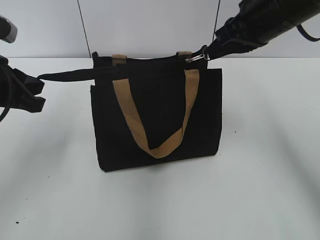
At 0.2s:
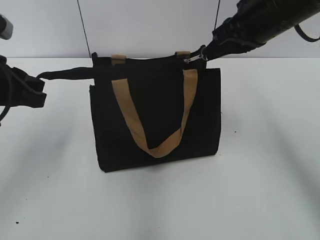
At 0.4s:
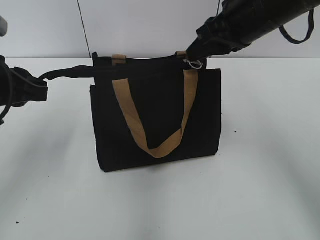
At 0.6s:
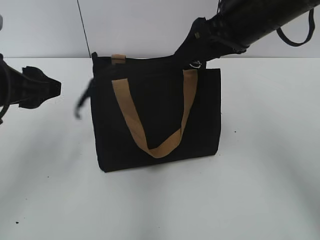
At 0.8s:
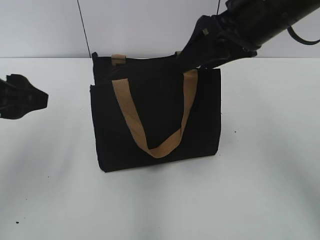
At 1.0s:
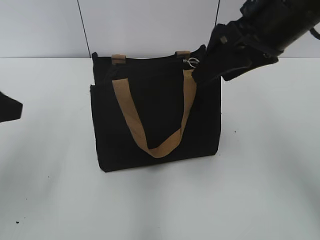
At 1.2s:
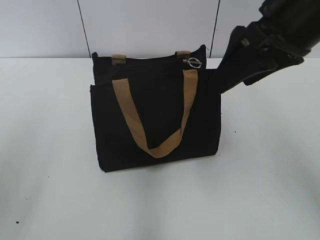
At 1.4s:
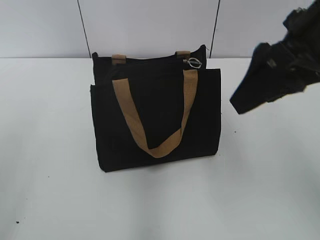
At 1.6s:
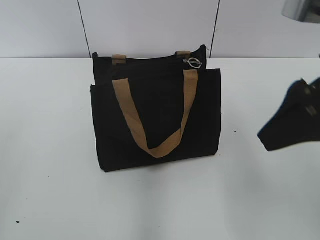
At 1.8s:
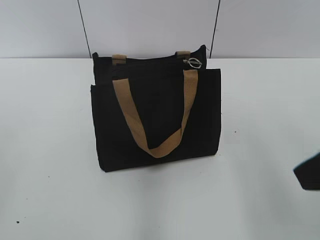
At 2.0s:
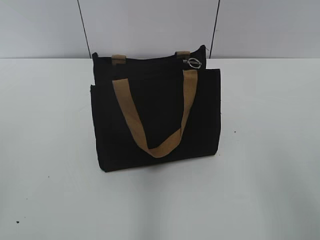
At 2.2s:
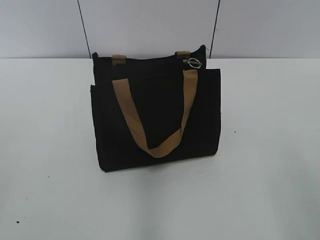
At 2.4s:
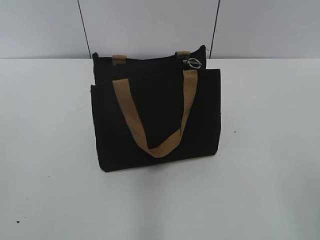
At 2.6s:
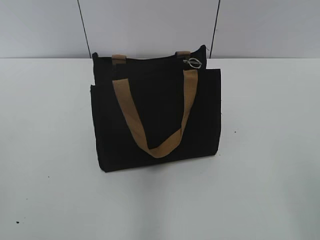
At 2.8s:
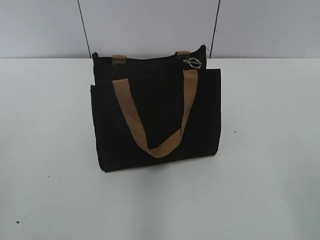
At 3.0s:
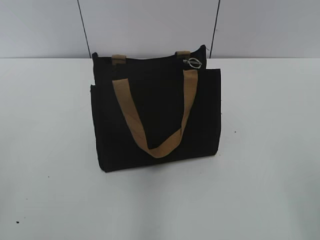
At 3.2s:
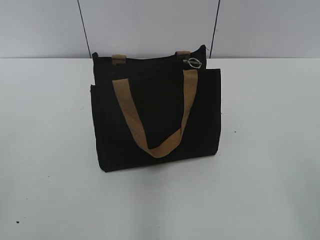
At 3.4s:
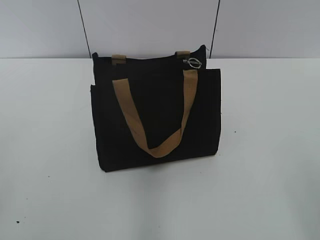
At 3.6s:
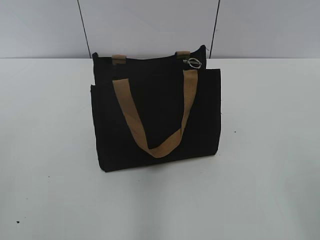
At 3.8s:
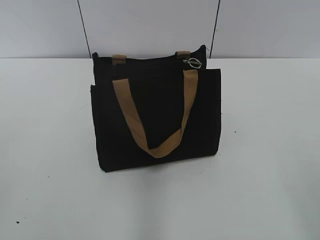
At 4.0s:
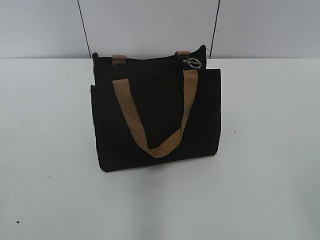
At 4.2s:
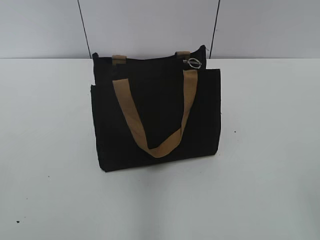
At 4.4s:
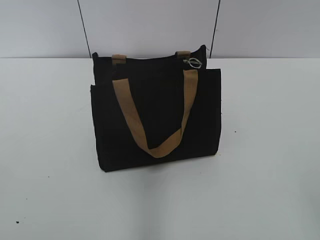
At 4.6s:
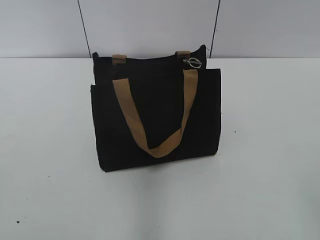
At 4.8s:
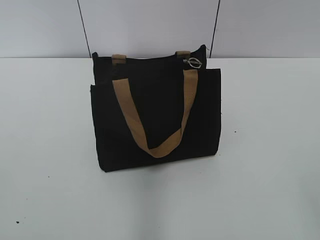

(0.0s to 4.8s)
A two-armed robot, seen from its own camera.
Step, 0.4s - 0.6s: Grab the zipper with your left hand.
0.0s - 1.6s: The grippers both shift backward by approximately 15 cm. The right gripper opens its fingers. The left gripper opens its fingers.
1.6s - 3.2s: The right gripper shifts roughly 20 cm backward and to the right.

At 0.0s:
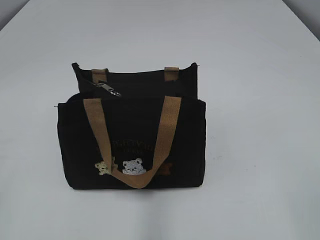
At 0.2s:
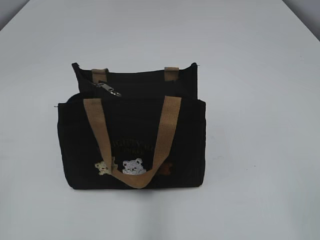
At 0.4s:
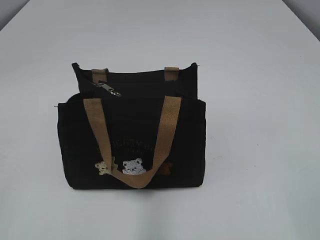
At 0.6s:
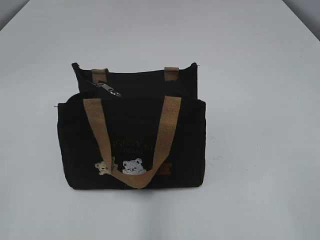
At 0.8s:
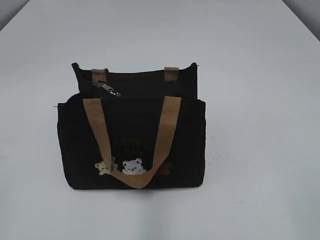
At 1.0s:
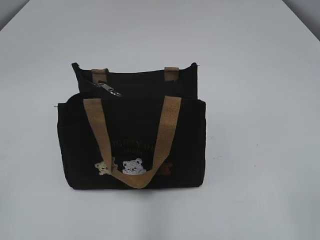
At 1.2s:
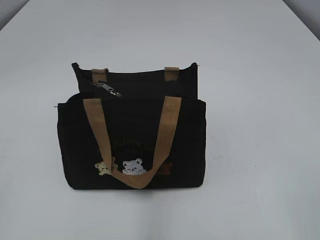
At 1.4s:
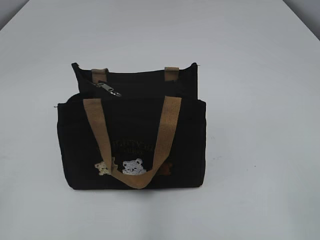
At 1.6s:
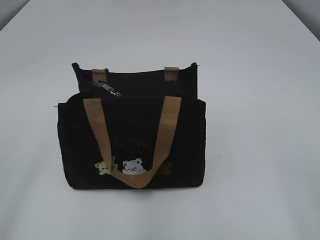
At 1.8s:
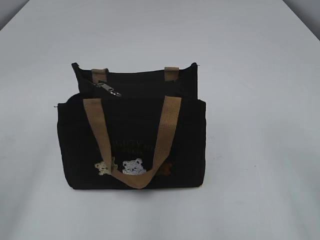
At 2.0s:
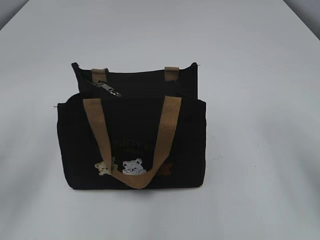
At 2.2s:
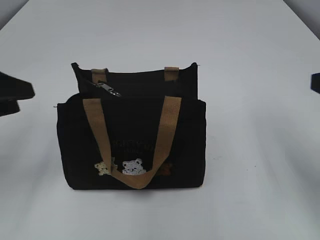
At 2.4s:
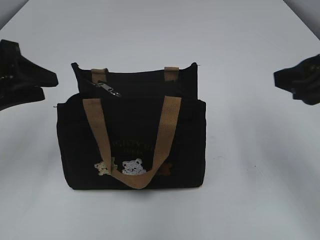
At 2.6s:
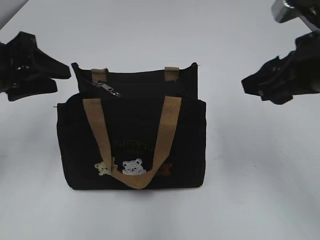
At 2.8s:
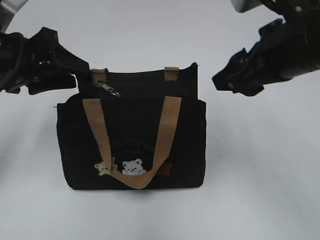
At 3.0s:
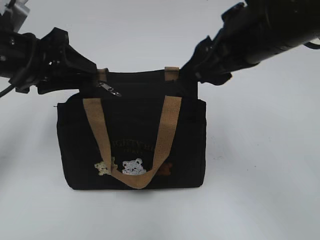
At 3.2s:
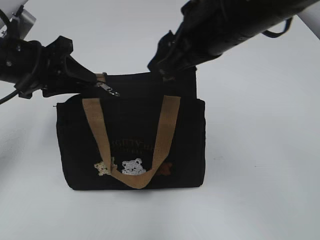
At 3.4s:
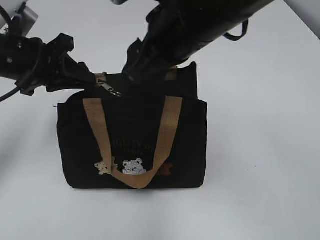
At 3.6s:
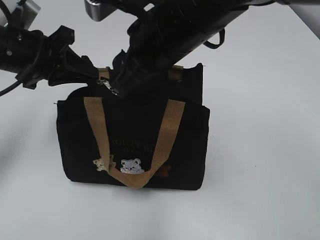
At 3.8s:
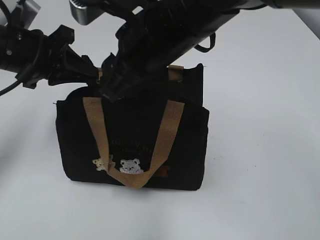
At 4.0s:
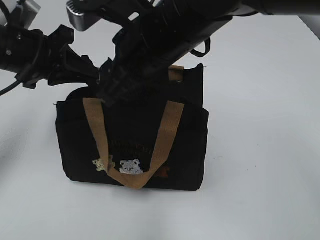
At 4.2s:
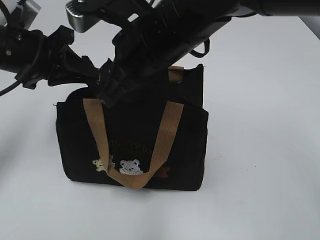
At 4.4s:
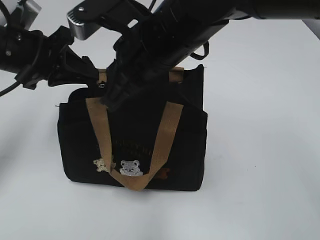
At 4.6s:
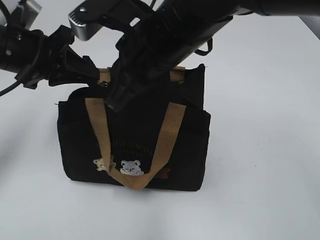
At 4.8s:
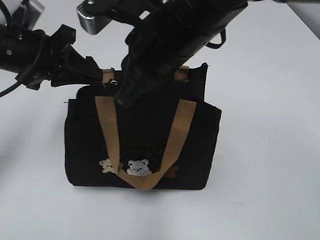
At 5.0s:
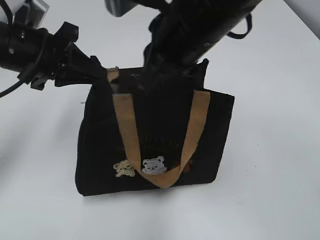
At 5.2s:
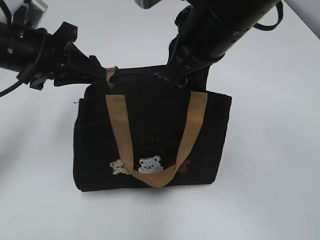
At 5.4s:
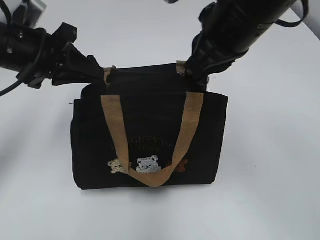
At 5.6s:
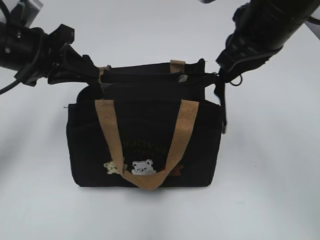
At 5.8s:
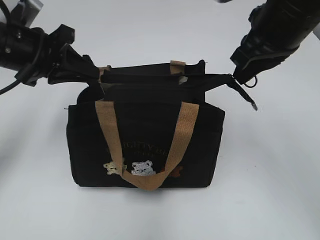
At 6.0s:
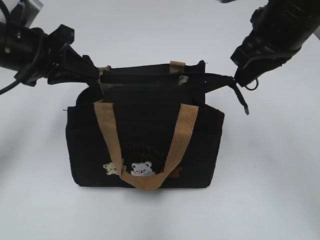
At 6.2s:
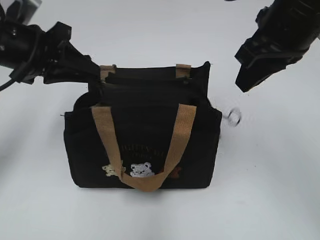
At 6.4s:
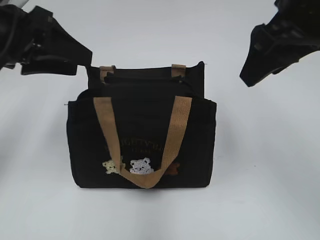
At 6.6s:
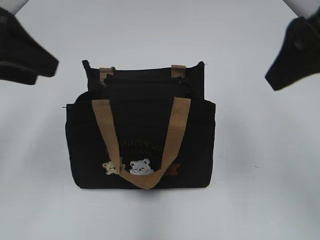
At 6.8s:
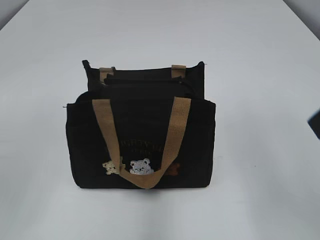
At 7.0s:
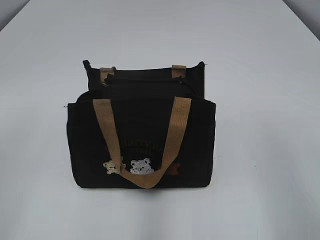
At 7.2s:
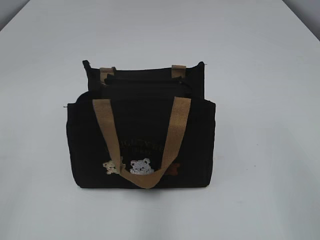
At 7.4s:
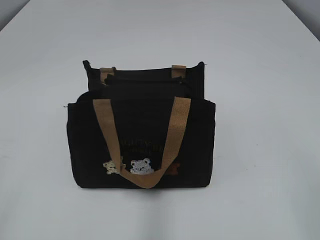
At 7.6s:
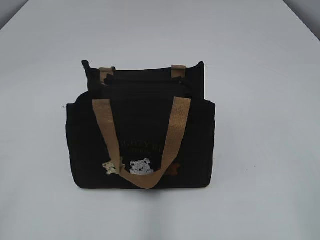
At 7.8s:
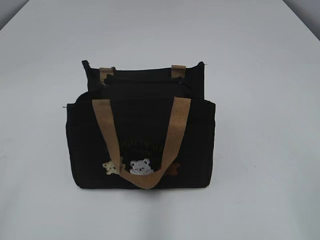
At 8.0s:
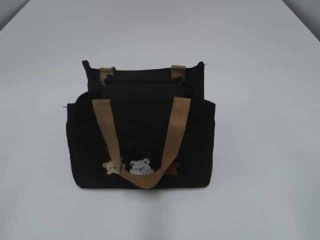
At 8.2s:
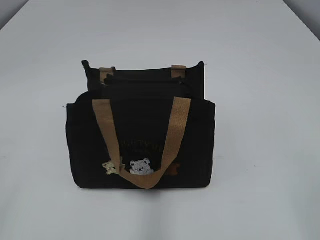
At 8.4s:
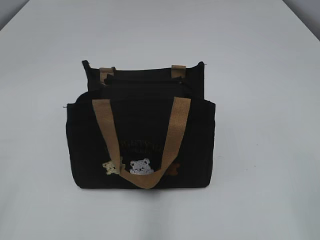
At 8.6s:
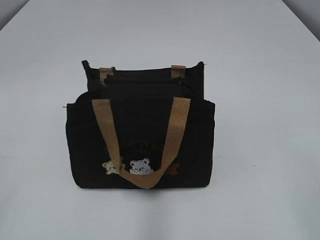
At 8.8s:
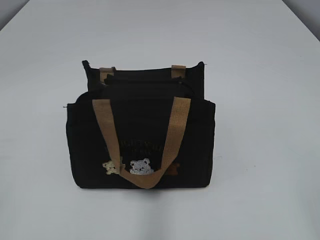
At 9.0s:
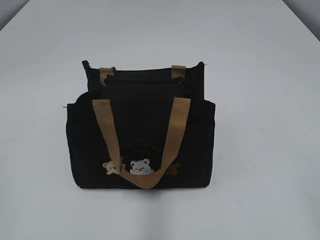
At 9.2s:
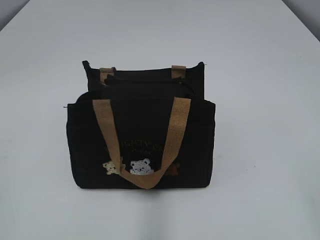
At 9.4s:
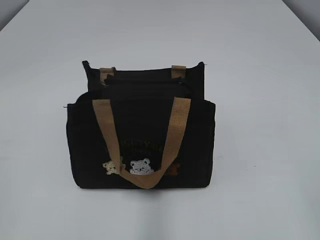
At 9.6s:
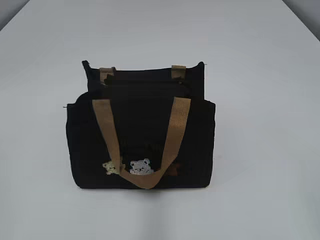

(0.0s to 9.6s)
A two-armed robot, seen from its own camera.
Step, 0.0s - 6.0s: Pull open the zipper with your right hand.
Step, 6.2s - 6.4s: Hold the bag with your left hand.
1.6s - 3.2s: The left gripper travels forward by some 30 cm. Meanwhile the right gripper goes about 30 cm forward and to the left.
3.2s - 4.8s: The right gripper travels to the left by approximately 10 cm, and closes its fingers; the left gripper closes.
4.8s - 6.4s: The left gripper opens up. The right gripper travels to the right by some 15 cm, and opens up.
6.4s - 8.0s: The right gripper shifts some 30 cm backward and to the right; the left gripper is displaced backward by some 30 cm.

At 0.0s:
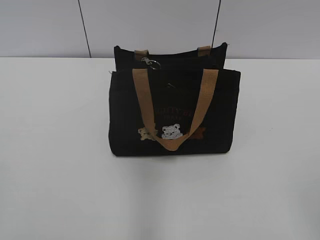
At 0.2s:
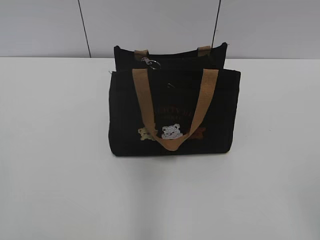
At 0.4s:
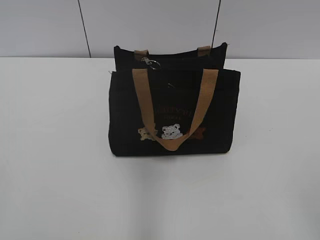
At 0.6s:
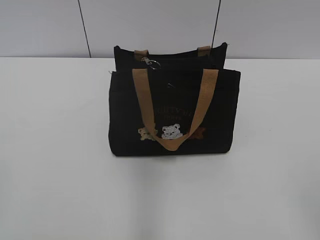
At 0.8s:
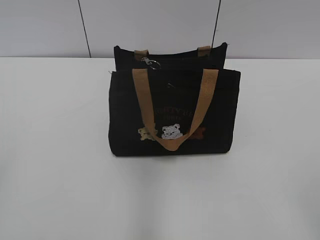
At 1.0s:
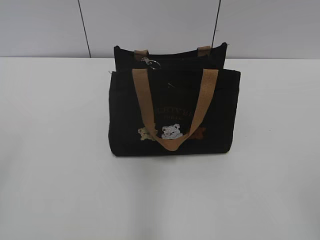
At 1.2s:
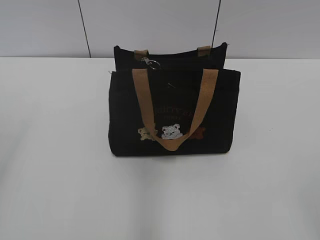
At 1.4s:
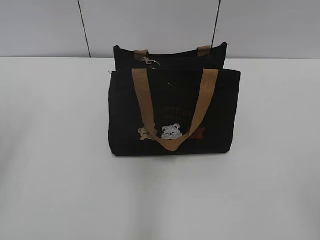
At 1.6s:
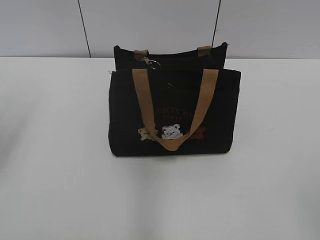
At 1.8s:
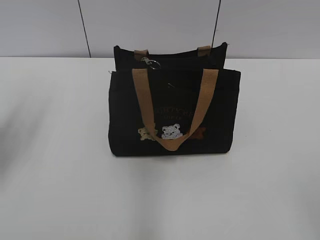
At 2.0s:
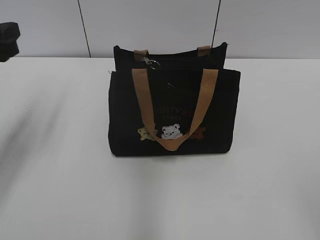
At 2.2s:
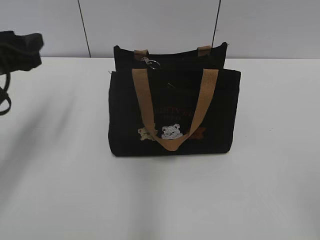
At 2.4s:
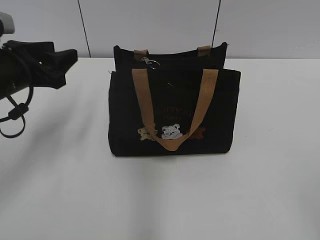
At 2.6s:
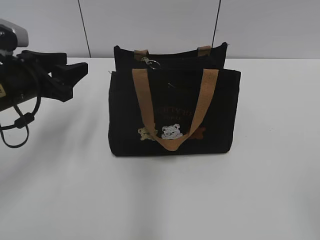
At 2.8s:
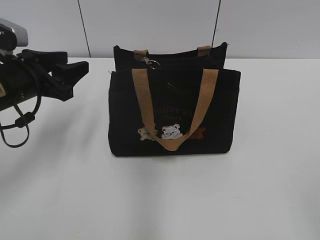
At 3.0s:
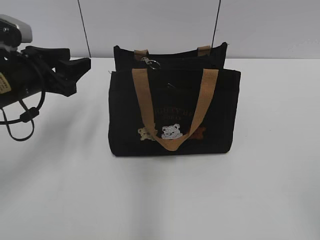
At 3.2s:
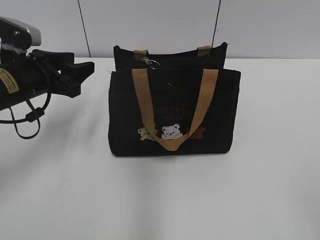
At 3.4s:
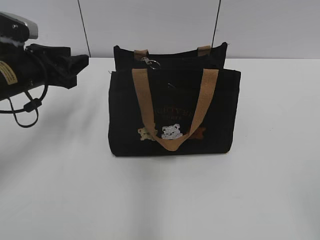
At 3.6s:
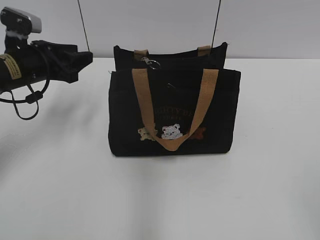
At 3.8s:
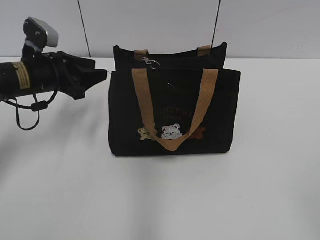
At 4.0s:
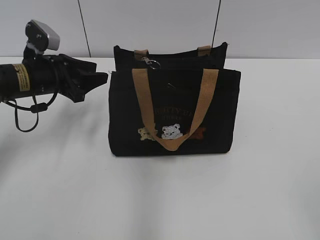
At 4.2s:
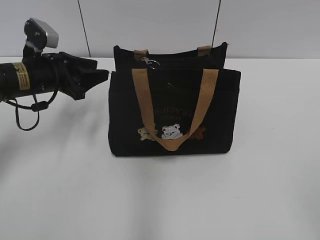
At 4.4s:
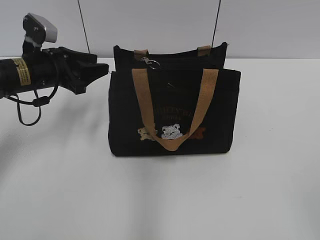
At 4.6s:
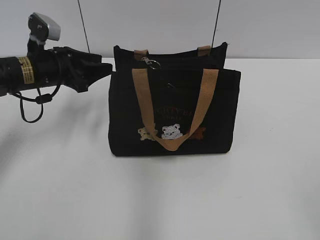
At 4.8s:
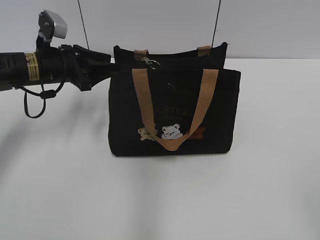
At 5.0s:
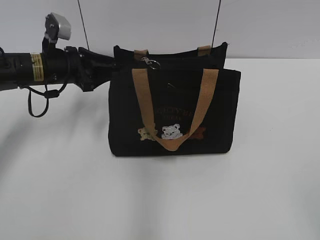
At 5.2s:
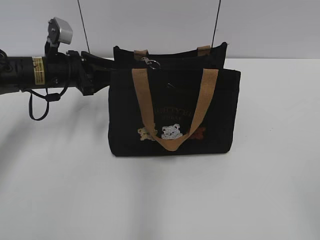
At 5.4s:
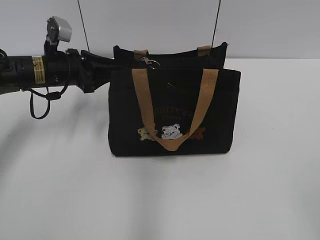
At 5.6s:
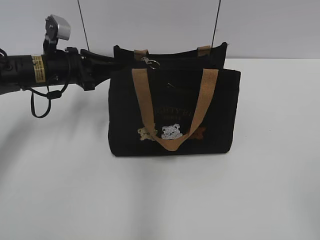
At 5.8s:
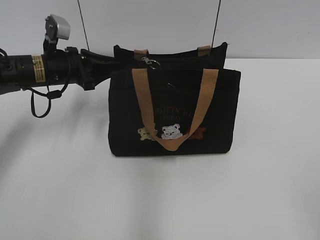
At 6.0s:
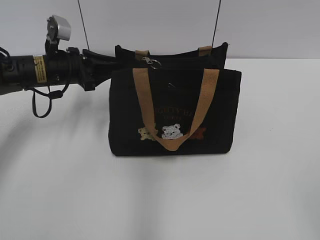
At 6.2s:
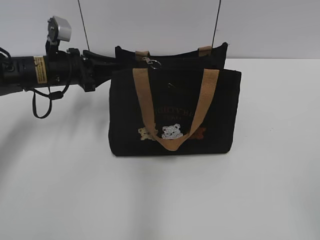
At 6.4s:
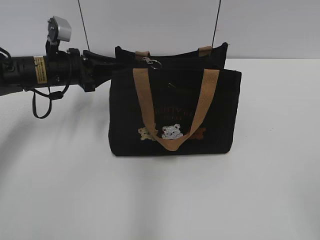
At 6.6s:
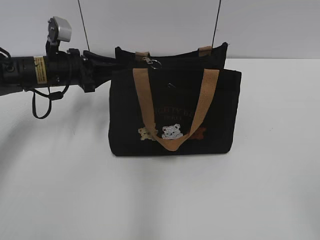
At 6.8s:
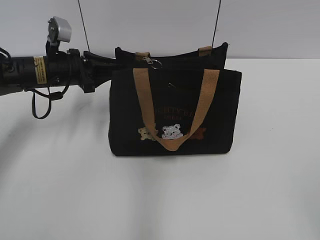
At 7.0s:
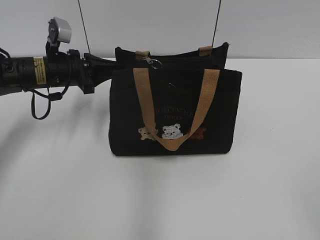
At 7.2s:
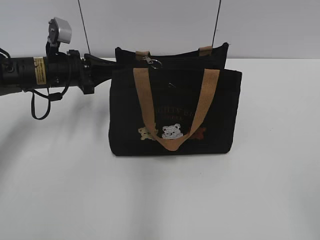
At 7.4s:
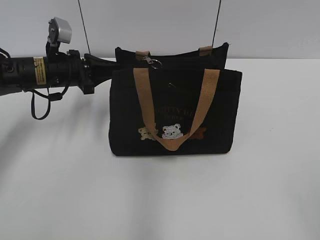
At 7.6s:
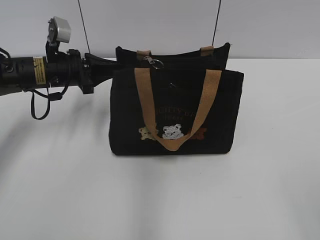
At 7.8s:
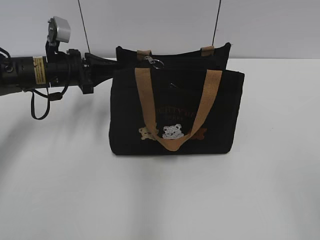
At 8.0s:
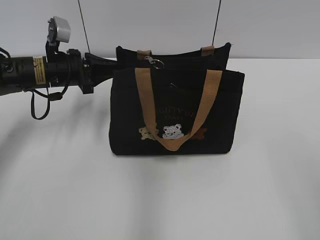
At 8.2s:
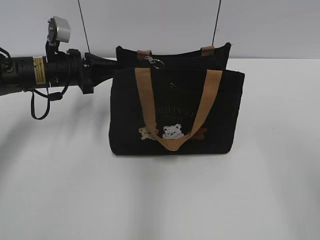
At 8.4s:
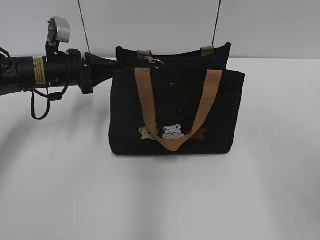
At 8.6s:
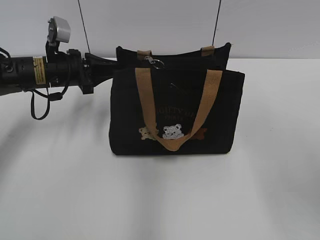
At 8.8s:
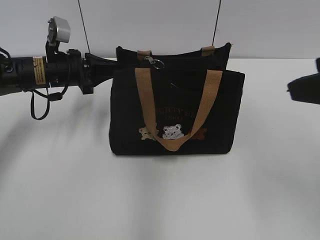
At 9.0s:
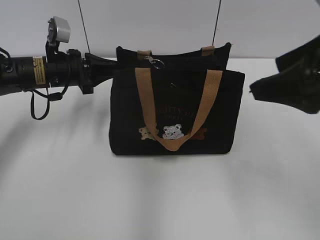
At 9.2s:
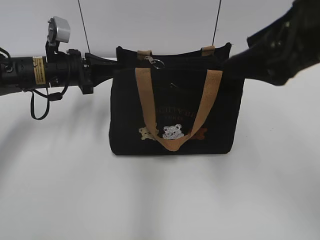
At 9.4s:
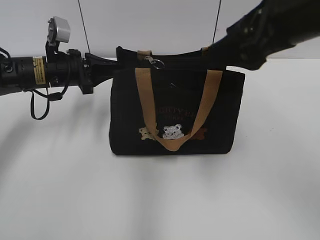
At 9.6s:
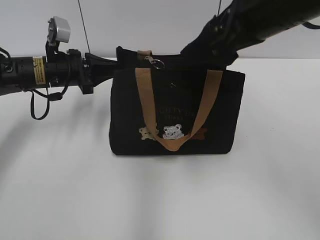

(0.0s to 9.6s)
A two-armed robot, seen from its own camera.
1.6s - 3.2s: The left gripper shifts some 20 cm forward, downward and to the right.
3.2s - 4.8s: The left gripper travels forward by about 5 cm.
4.8s - 6.4s: The grippers stay close to where they were, moving slightly.
6.4s - 8.0s: The right gripper travels upward by roughly 5 cm. Meanwhile the left gripper closes its fingers.
8.0s - 9.6s: The right gripper is displaced forward and to the left by about 30 cm.
